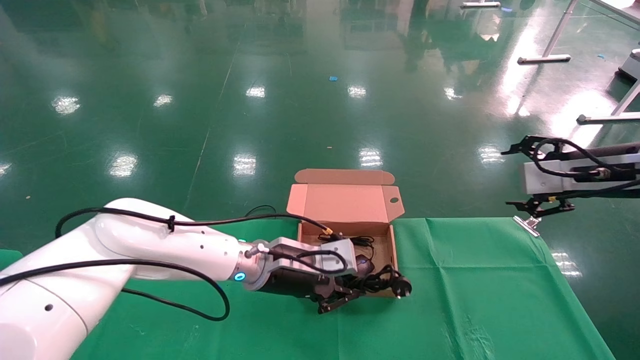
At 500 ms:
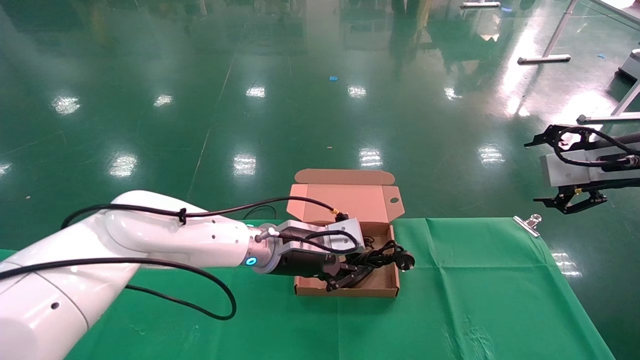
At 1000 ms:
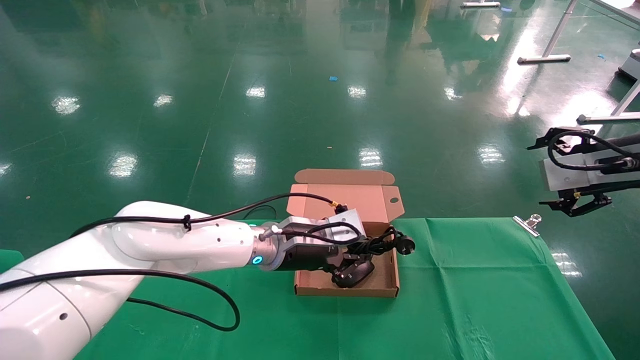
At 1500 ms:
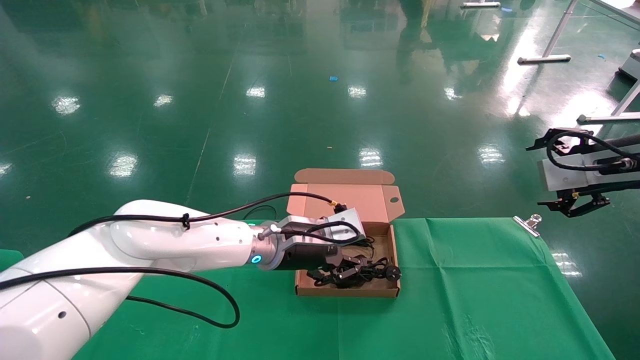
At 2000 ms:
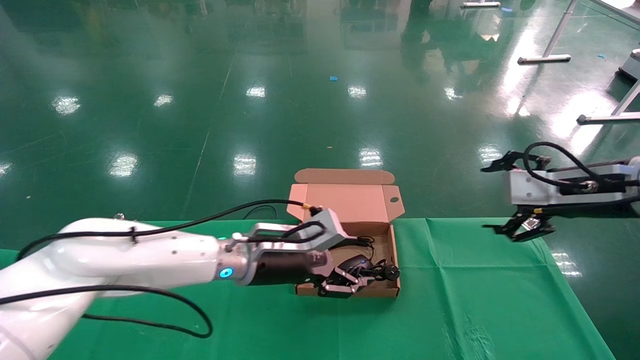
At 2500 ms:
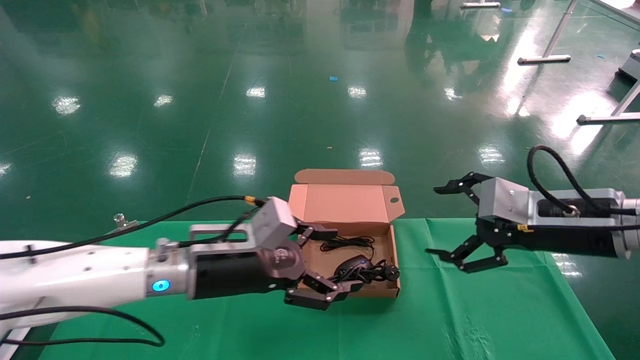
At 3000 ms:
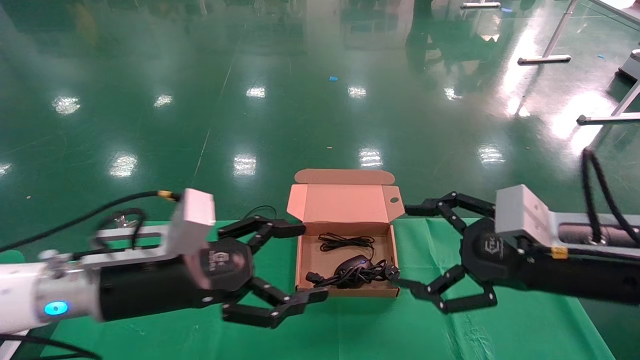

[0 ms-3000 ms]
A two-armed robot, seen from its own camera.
0 ms to 1500 ms: The grippers move only a little.
1500 ms to 3000 ms: The left gripper is displaced backward and to the left by some 20 cm, and opens its fingers. The right gripper moves to the left, backward and downward, some 20 cm.
